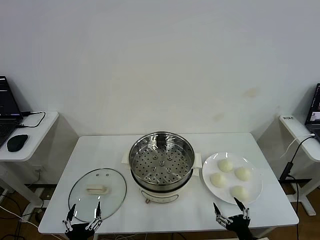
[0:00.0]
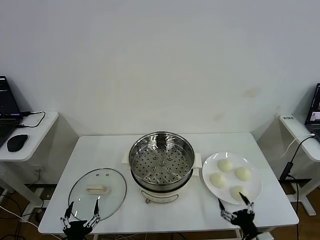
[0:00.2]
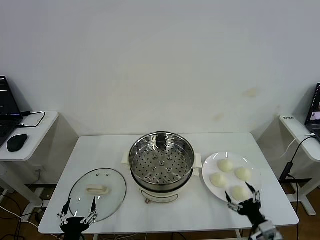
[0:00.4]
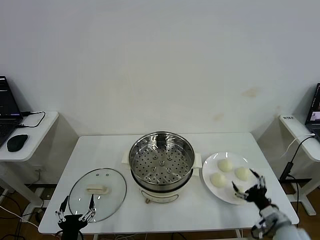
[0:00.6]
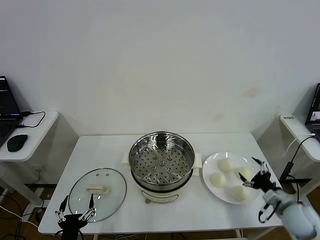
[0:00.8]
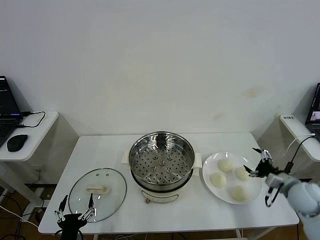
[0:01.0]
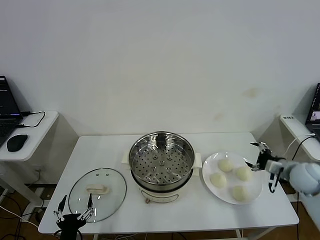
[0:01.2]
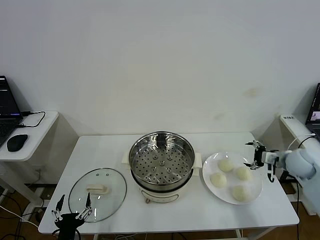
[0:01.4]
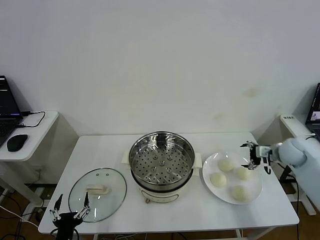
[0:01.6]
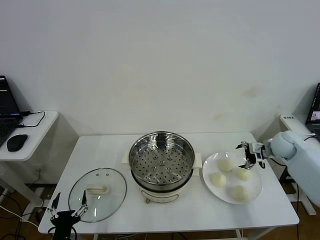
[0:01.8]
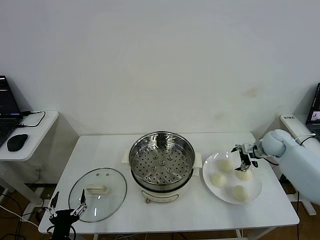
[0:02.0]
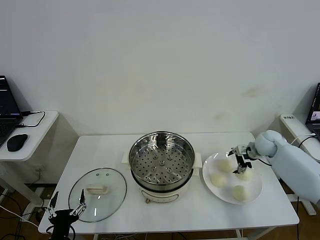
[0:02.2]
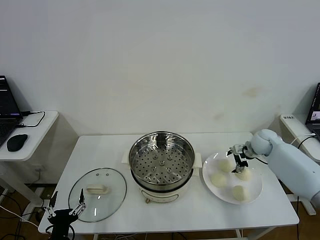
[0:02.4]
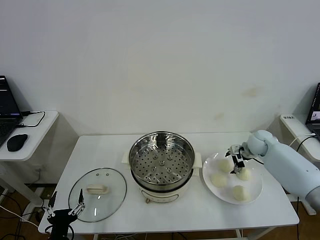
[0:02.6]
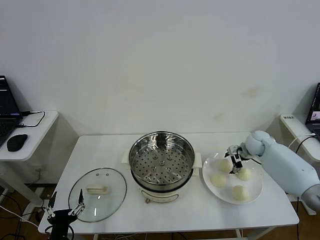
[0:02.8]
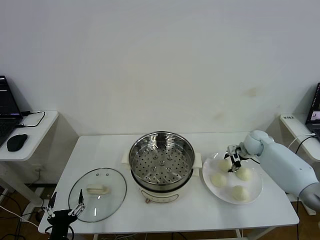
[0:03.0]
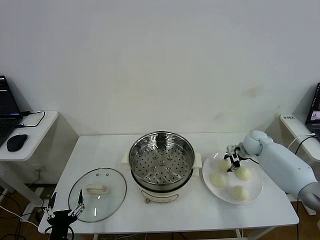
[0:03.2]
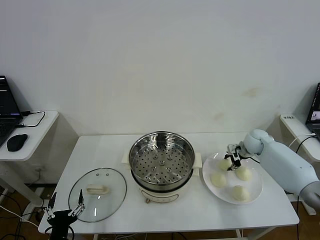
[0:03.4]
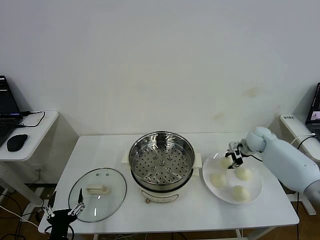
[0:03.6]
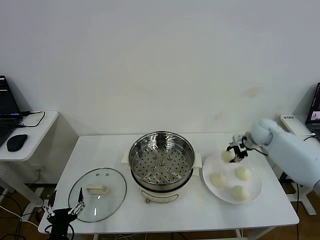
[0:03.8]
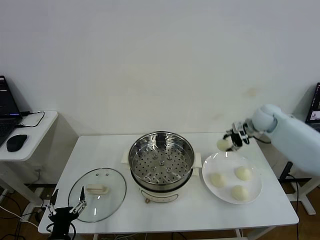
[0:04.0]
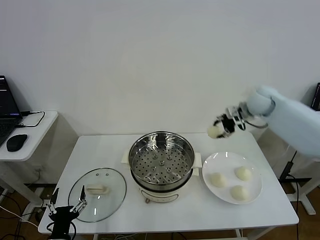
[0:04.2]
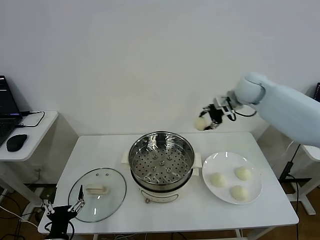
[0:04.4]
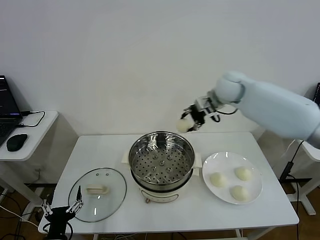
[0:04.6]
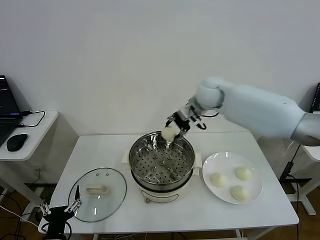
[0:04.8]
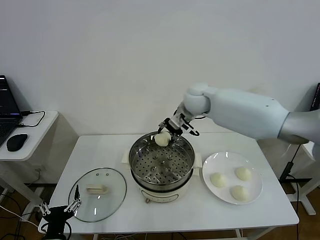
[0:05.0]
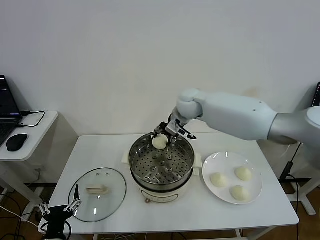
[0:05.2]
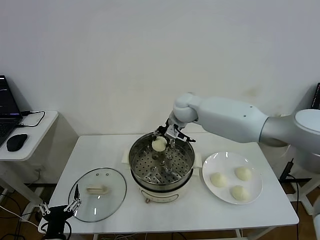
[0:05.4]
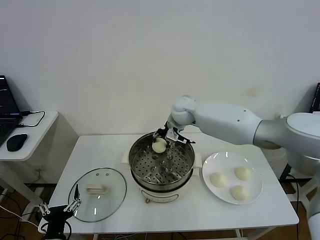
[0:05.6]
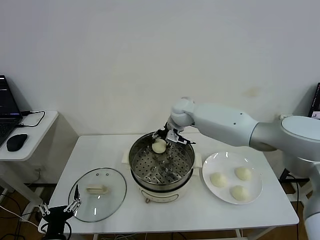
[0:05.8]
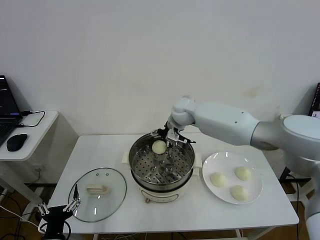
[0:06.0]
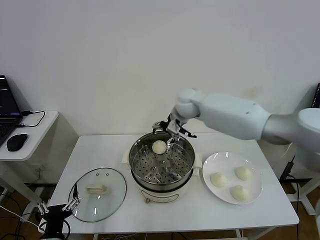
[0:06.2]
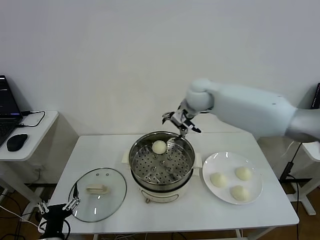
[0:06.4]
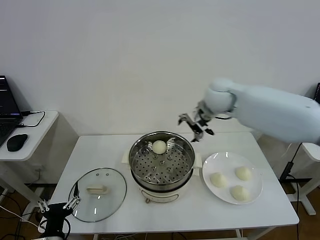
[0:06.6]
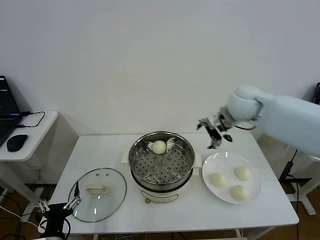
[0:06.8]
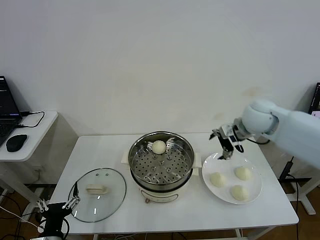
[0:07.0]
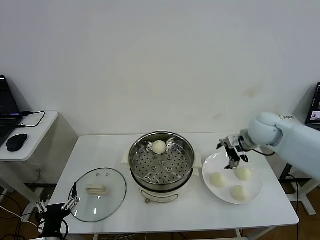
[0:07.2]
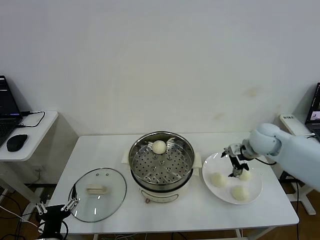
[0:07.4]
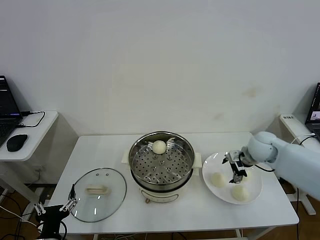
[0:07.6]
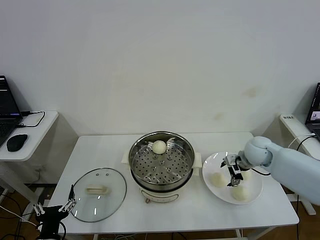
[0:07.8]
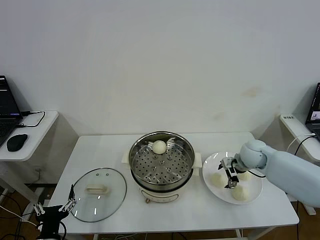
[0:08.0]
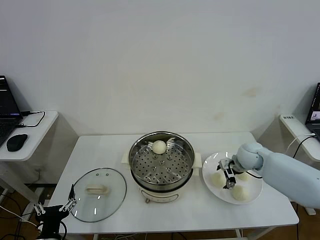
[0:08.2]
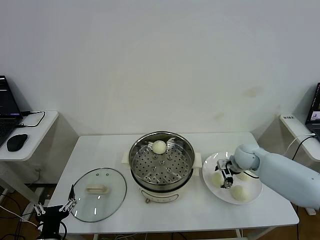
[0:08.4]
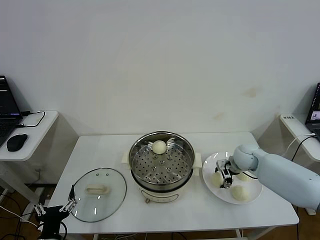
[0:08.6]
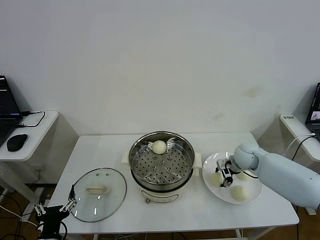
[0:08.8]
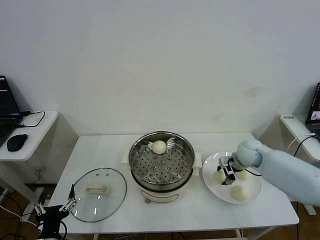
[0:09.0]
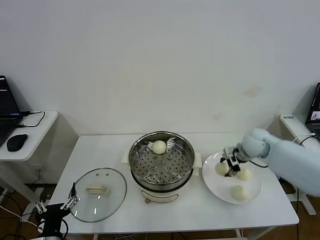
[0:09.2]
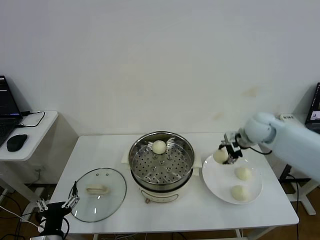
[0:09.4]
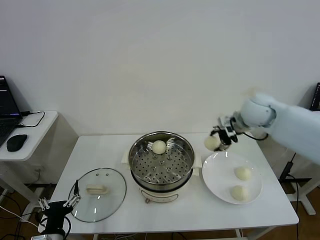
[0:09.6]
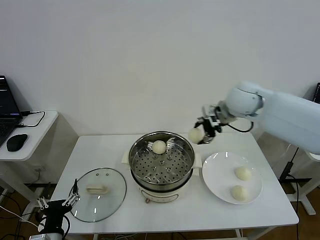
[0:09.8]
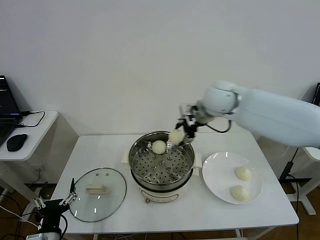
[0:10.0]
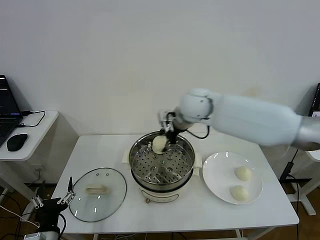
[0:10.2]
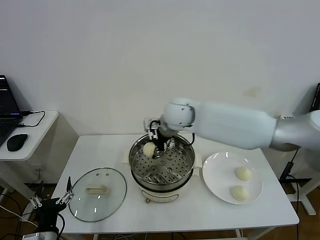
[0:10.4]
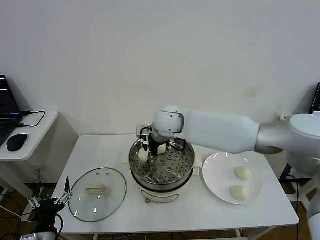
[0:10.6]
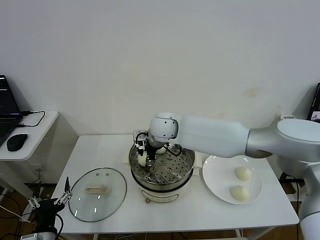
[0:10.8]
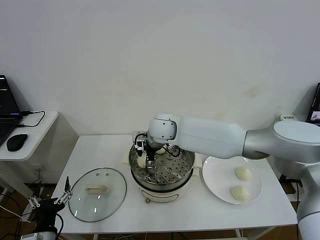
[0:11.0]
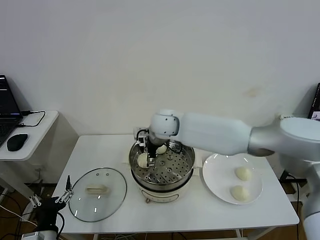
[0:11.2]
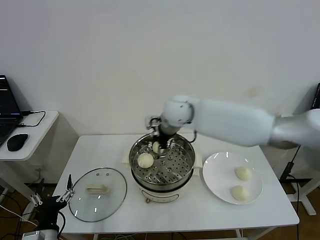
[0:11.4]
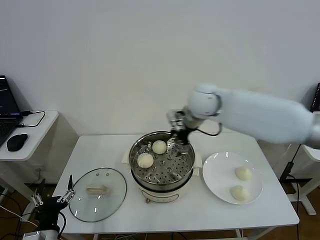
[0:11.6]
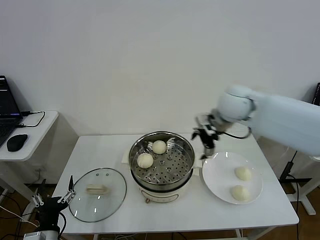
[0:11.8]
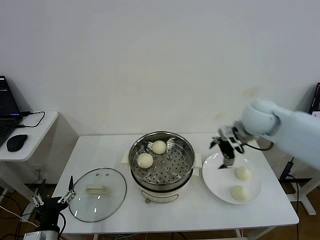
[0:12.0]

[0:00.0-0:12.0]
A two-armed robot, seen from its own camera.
Step, 0:00.0 to 0:03.2: Grasp the baozi in the plate with right gripper.
Step, 0:03.4 to 0:05.8: Place the baozi on the steamer with right gripper.
Step, 0:06.0 to 0:08.6: Grasp the baozi in the plate with right gripper.
Step, 0:08.8 to 0:10.8: Place the baozi on the steamer with right gripper.
0:01.6 to 0:03.0: The right gripper heads forward, to the left and downward, covering about 10 cm, and closes up.
0:03.0 to 0:04.4: The right gripper travels upward and to the left by about 30 cm.
0:04.4 to 0:06.0: The right gripper travels to the left and downward by roughly 15 cm, and opens up.
0:06.0 to 0:07.6: The right gripper moves to the right and backward, roughly 30 cm.
0:07.6 to 0:09.0: The right gripper closes up.
0:09.0 to 0:10.4: The right gripper heads to the left and upward, covering roughly 30 cm.
0:10.4 to 0:12.0: The right gripper heads to the right, covering about 25 cm, and opens up.

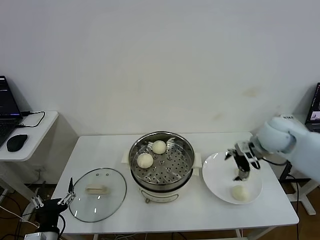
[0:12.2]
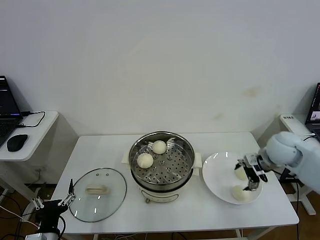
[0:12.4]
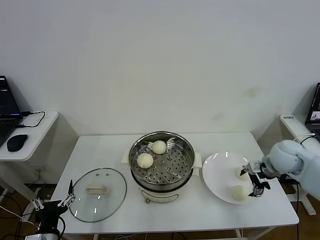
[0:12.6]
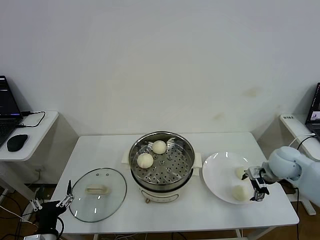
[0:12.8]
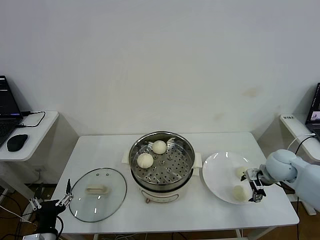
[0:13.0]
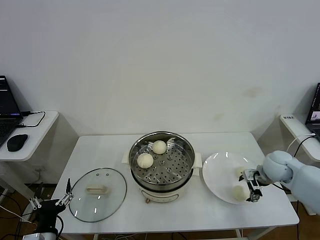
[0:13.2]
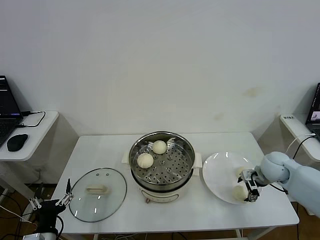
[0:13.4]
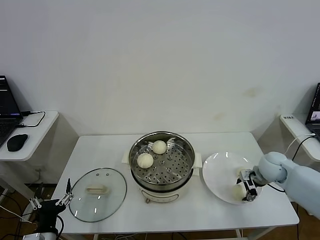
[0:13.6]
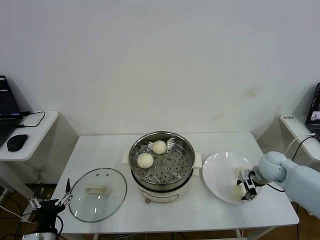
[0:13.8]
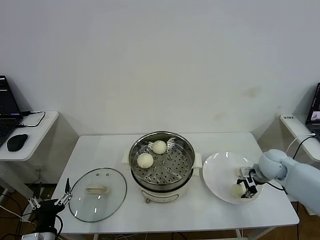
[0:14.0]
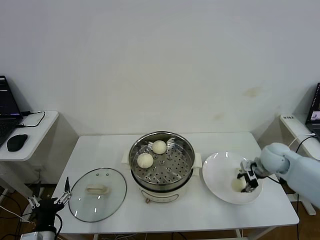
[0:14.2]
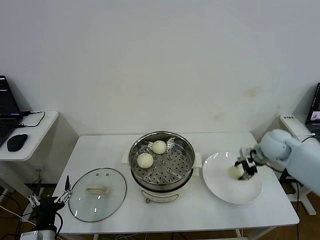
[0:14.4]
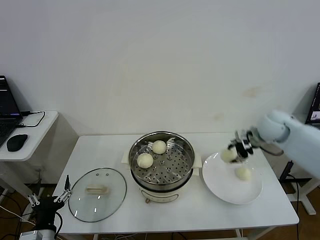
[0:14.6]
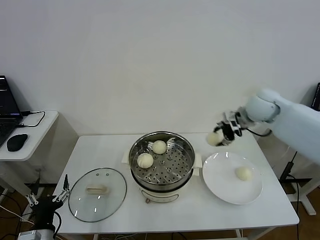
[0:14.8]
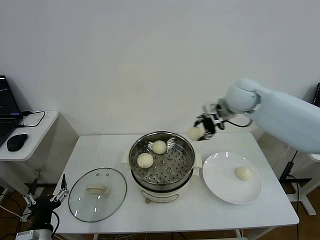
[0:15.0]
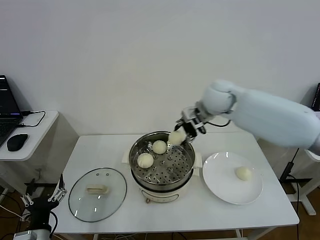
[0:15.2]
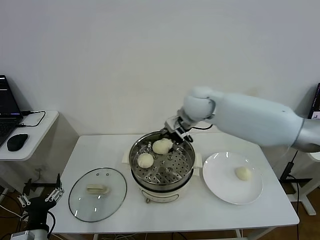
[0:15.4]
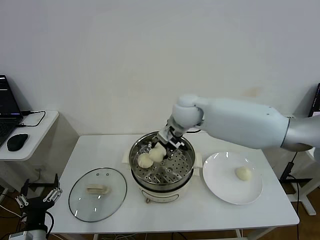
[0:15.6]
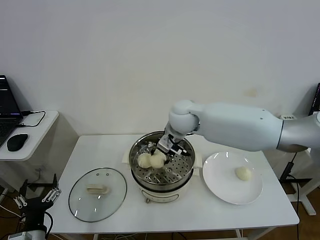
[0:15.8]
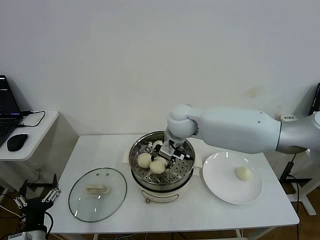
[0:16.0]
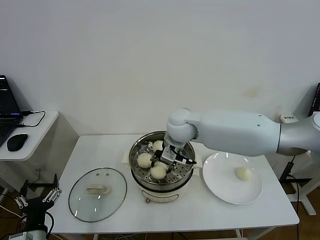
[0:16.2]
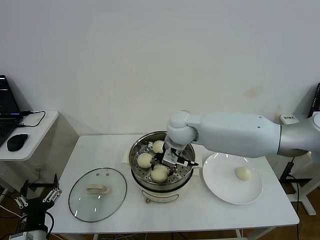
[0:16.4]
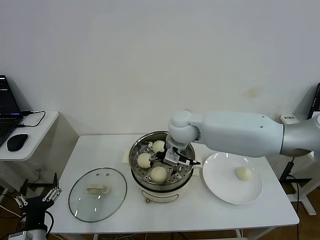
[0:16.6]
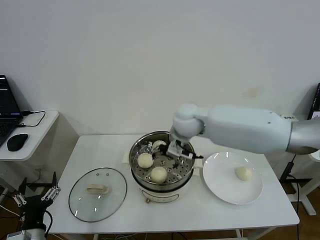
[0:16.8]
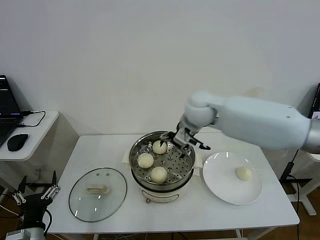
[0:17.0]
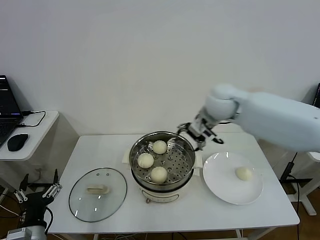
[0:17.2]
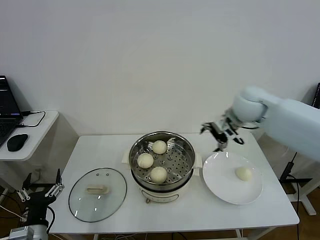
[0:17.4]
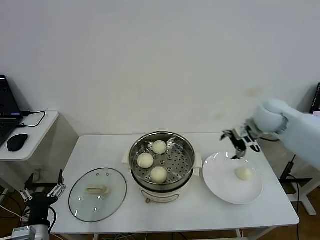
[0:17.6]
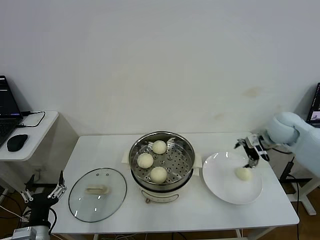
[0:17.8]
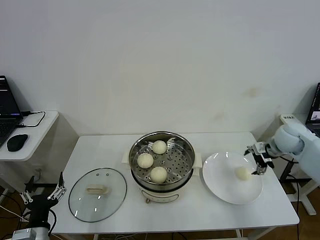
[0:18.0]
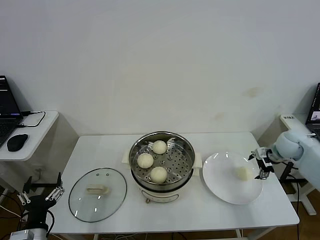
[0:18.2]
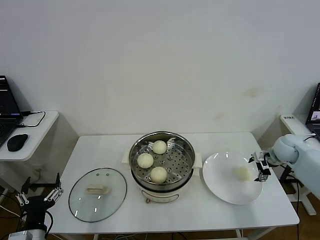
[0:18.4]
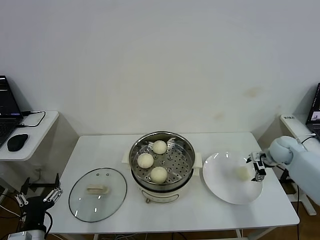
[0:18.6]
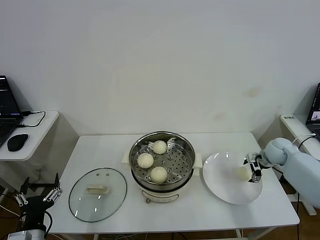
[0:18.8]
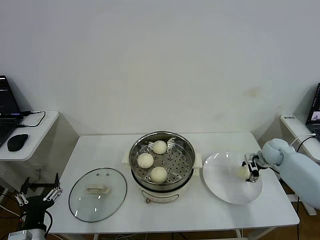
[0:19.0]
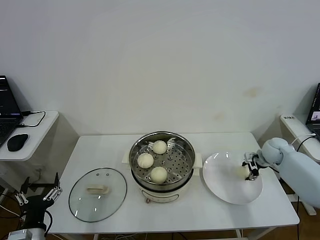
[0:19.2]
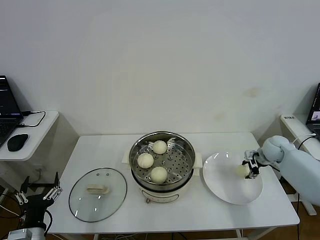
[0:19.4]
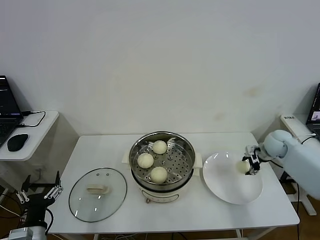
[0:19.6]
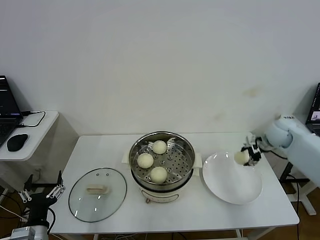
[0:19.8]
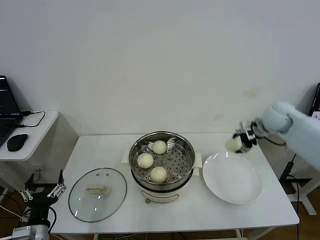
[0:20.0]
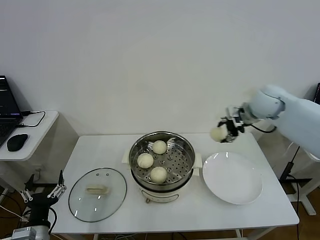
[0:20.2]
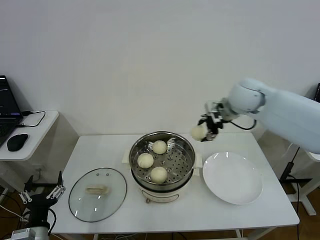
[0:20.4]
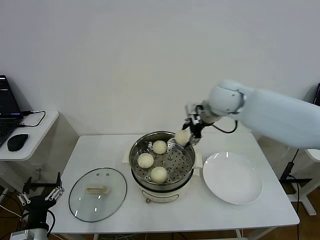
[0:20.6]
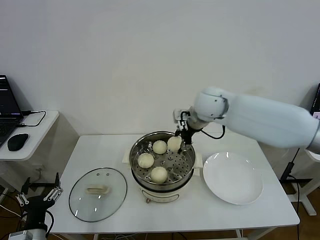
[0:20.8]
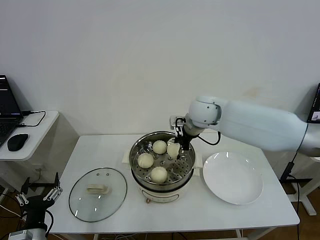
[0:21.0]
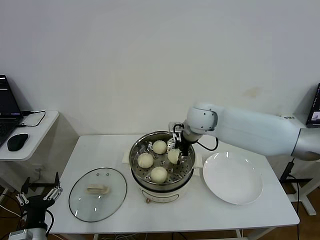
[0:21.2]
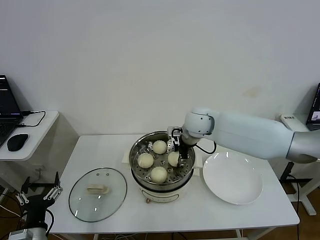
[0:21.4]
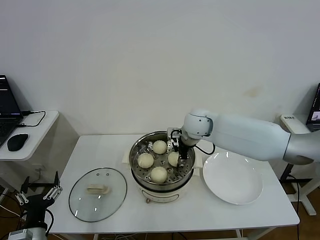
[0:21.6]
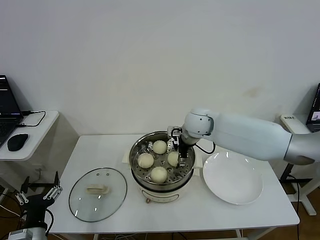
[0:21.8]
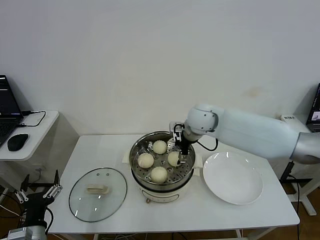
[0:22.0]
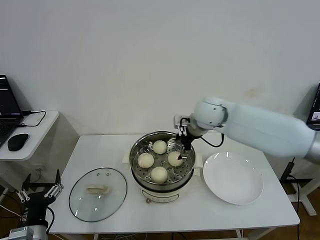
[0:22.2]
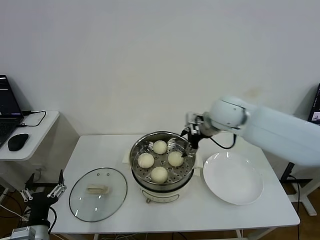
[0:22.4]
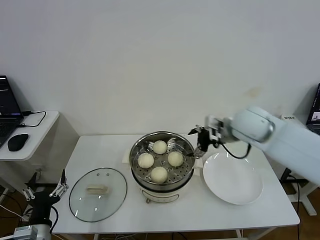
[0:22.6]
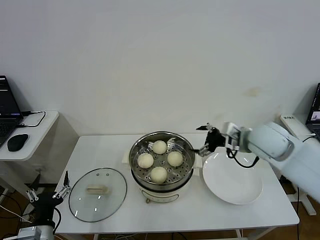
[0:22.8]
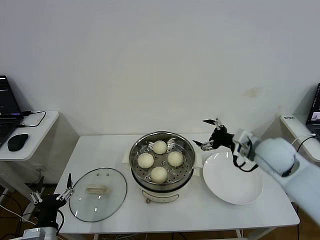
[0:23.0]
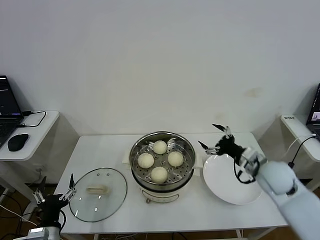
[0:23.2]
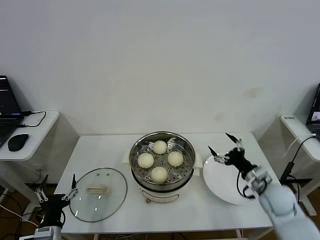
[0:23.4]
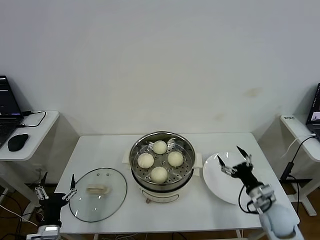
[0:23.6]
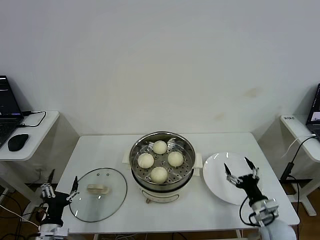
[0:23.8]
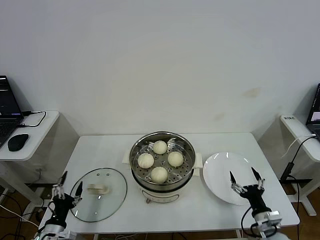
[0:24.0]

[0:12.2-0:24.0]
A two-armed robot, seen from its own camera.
Step, 0:12.2 to 0:13.8: Grasp the baozi in the plate with right gripper.
Step, 0:14.0 to 0:16.4: Place the baozi on the steamer with right gripper.
Step, 0:16.6 to 0:19.2: Grasp the baozi in the plate with right gripper.
Step, 0:19.6 to 0:21.8: Place the baozi on the steamer with right gripper.
0:12.2 to 0:13.6: The right gripper shifts roughly 15 cm downward, and closes its fingers.
0:13.6 to 0:15.2: The right gripper heads to the left, upward and forward, covering some 35 cm, and closes up.
0:15.2 to 0:16.6: The right gripper heads to the left and downward, covering approximately 10 cm, and opens its fingers.
0:16.6 to 0:18.2: The right gripper is displaced to the right by approximately 40 cm.
0:18.2 to 0:19.6: The right gripper closes its fingers.
0:19.6 to 0:21.0: The right gripper heads to the left and upward, covering some 35 cm.
0:21.0 to 0:22.6: The right gripper moves to the right and backward, some 15 cm, and opens up.
0:22.6 to 0:24.0: The left gripper travels downward by approximately 10 cm; the right gripper is displaced downward and backward by some 40 cm.
